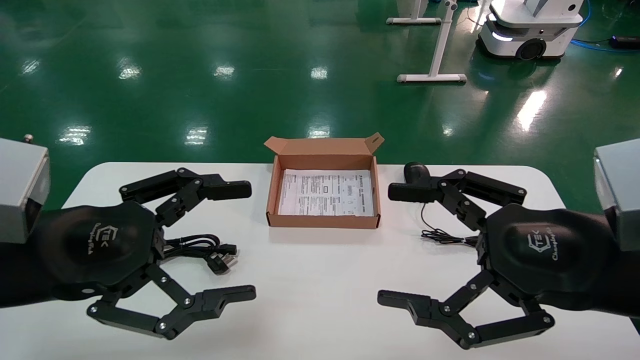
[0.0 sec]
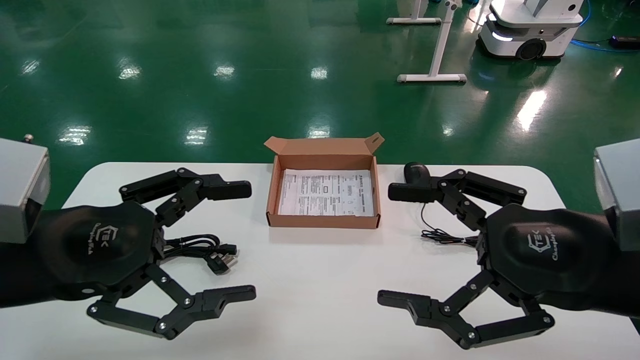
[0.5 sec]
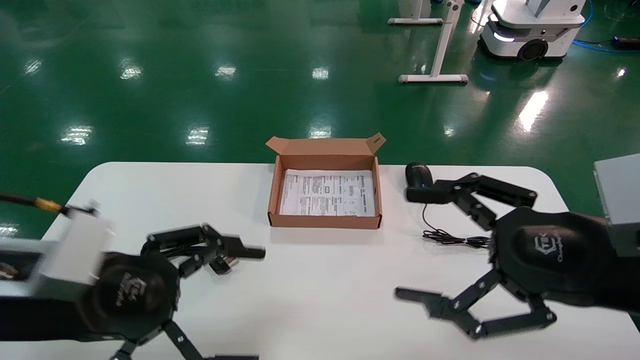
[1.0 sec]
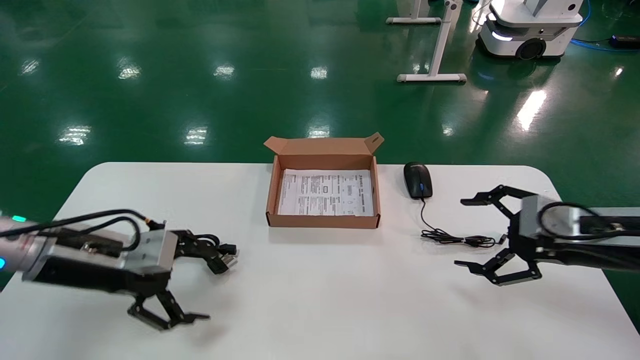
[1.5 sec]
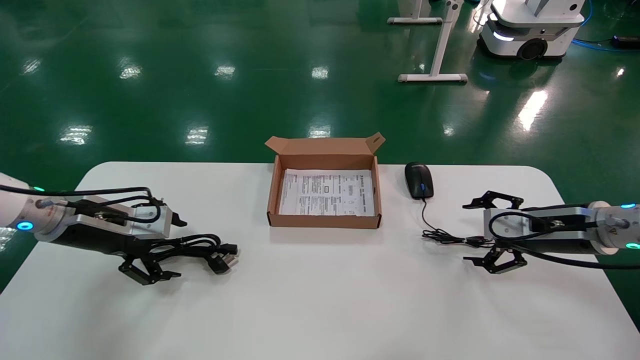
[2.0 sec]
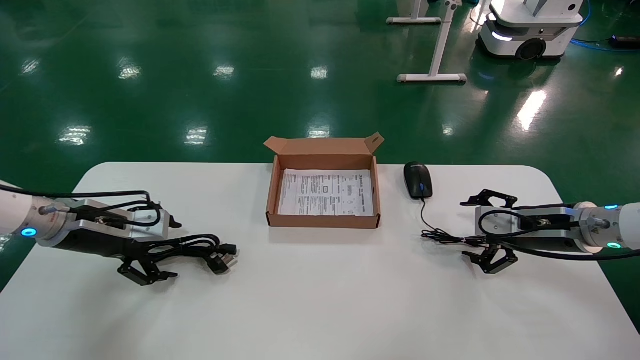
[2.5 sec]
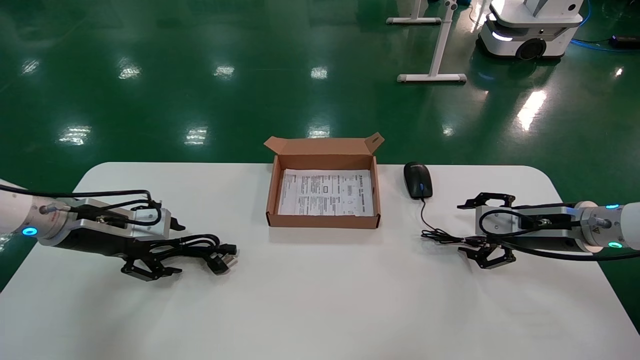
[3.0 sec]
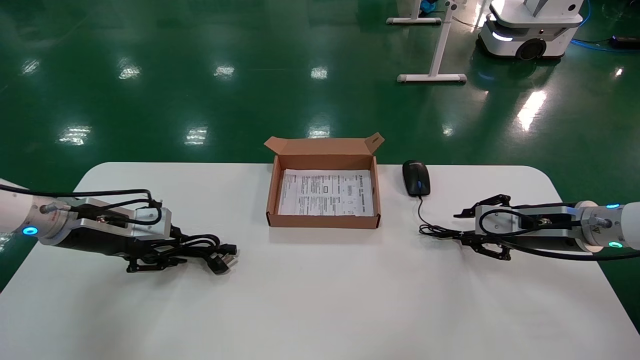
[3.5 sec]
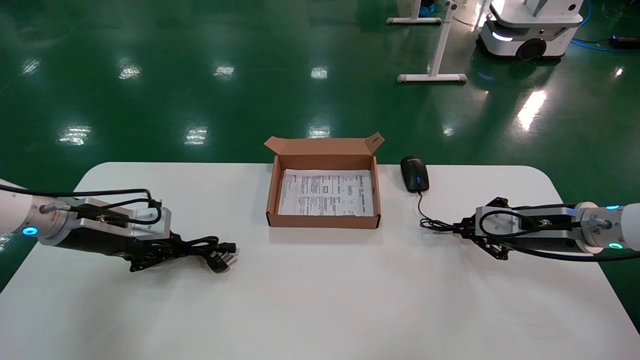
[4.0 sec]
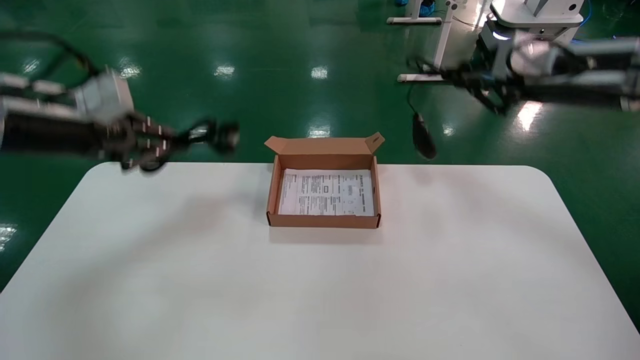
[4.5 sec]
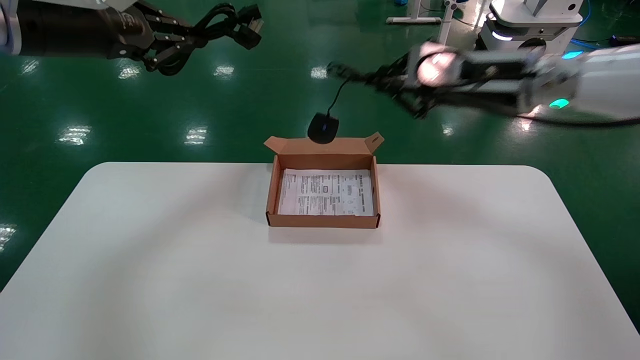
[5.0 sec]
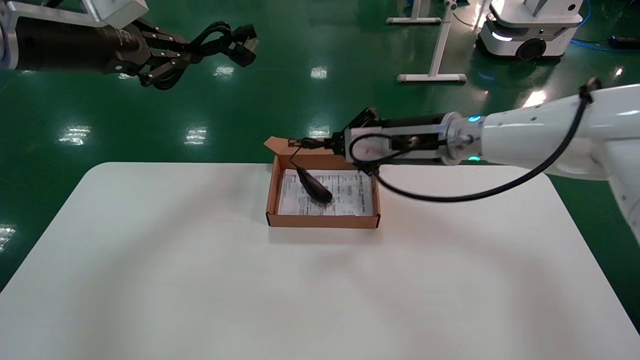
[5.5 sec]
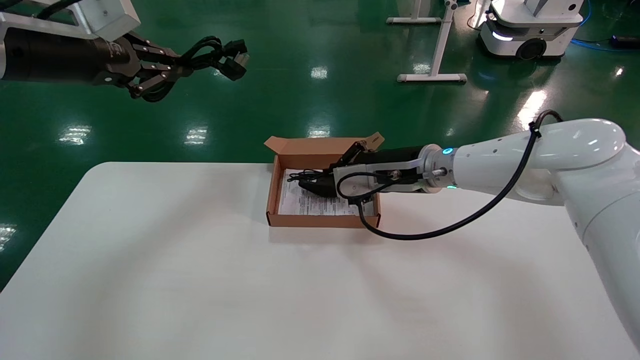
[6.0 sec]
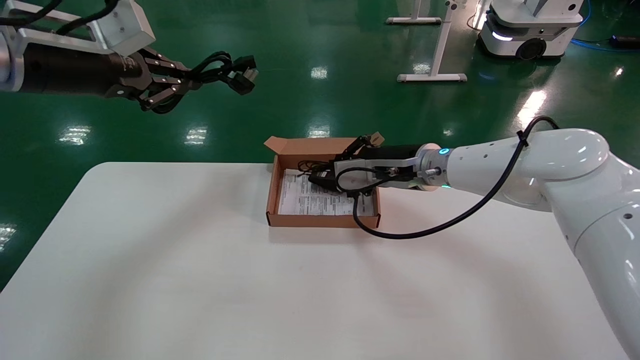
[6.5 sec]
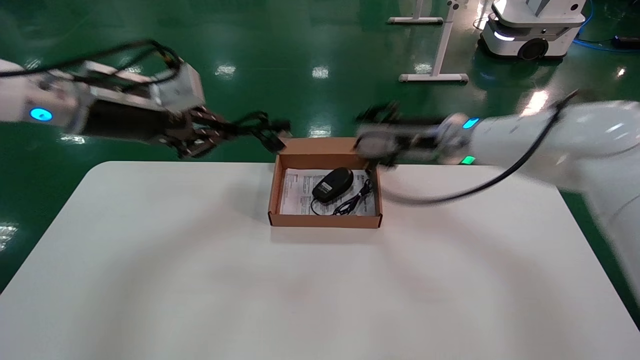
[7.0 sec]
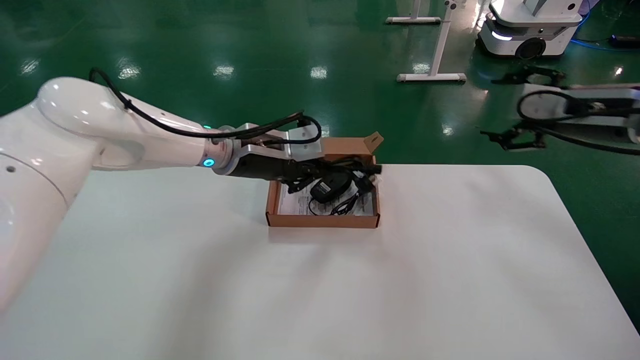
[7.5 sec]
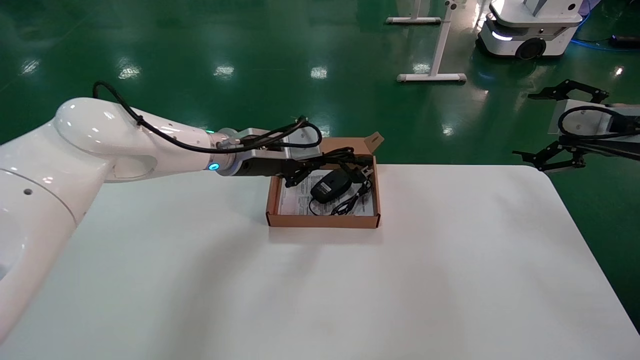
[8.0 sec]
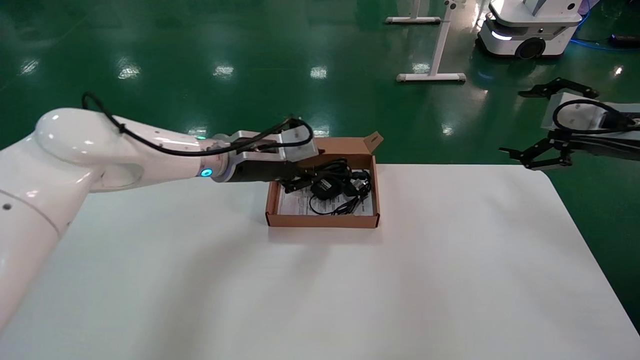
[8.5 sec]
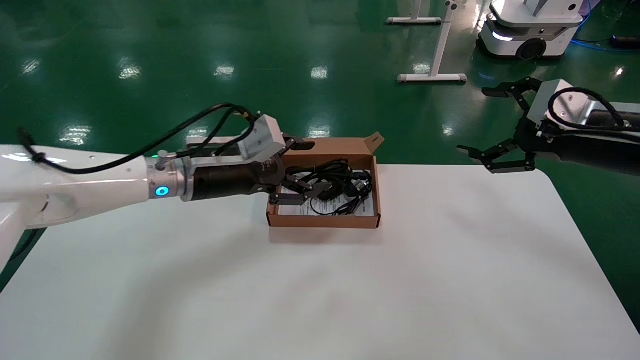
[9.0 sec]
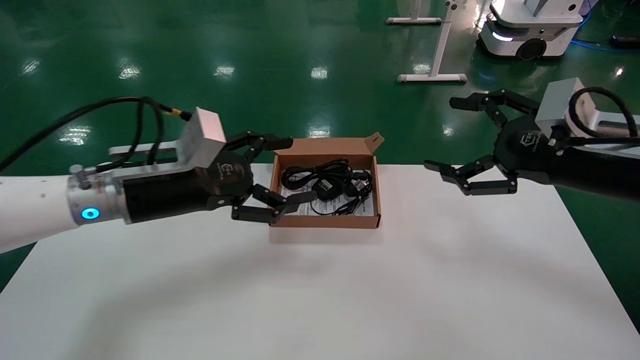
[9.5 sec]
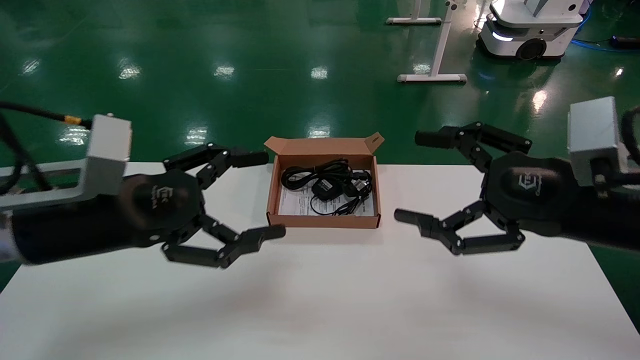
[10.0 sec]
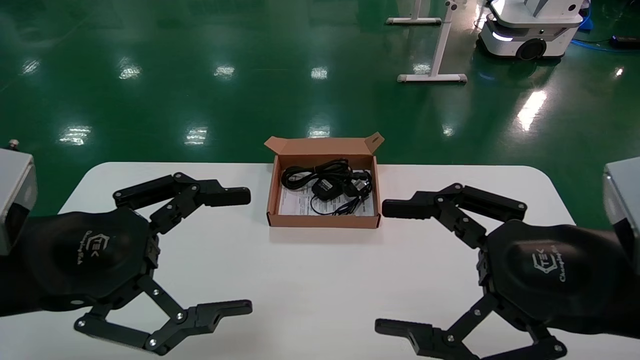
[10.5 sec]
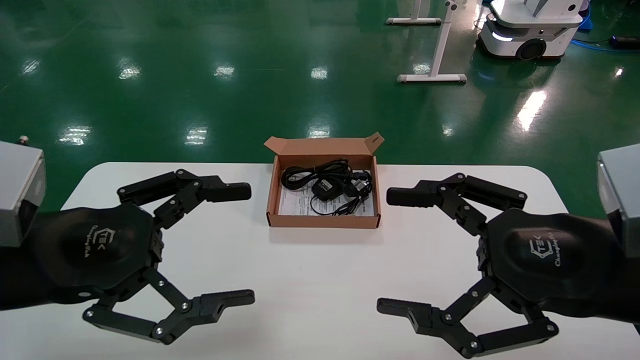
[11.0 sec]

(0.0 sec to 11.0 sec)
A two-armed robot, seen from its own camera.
Step, 1.5 sec - 4.0 sec: Grab and lift both the mouse and power cord from the accessory packaging area at the same time.
Step, 4.5 sec - 8.5 sec: Place the mouse and power cord into the box.
0.0 sec - 2.0 sec: The left gripper is displaced forward and to the left by about 20 cm. The right gripper heads forward, to the right and downward, covering some 25 cm.
2.0 sec - 3.5 sec: The left gripper closes. Meanwhile the right gripper closes its fingers.
3.5 sec - 5.5 sec: The left gripper goes approximately 25 cm upward, and closes. The right gripper is displaced to the left and upward by approximately 25 cm, and closes its fingers.
5.5 sec - 7.5 sec: The right gripper is displaced to the right by about 20 cm, and opens its fingers, while the left gripper goes some 25 cm to the right, downward and forward.
7.5 sec - 9.0 sec: The left gripper changes place by about 5 cm, and opens up. The right gripper shifts about 5 cm backward.
9.0 sec - 11.0 sec: Both grippers travel together backward and to the left, roughly 20 cm. The left gripper opens up.

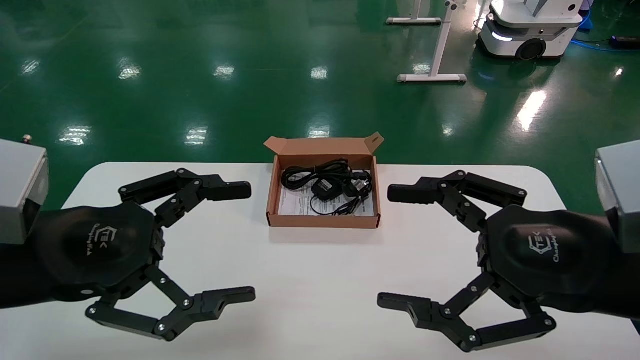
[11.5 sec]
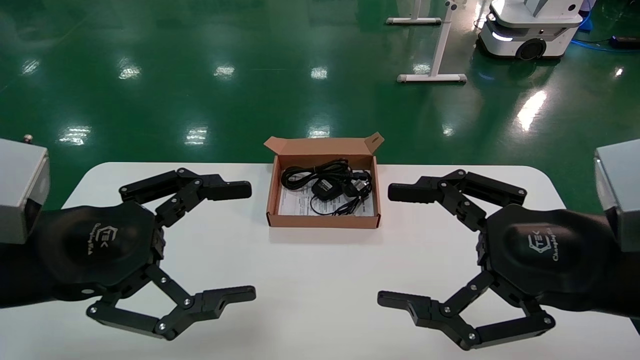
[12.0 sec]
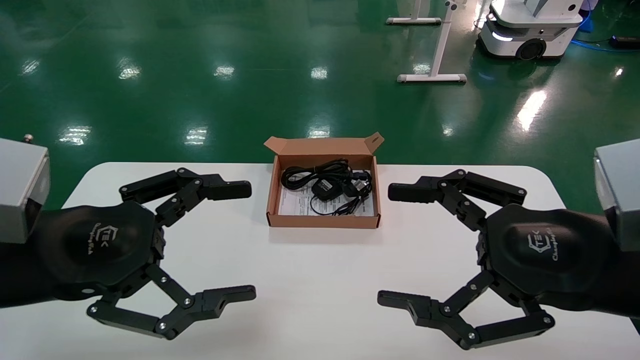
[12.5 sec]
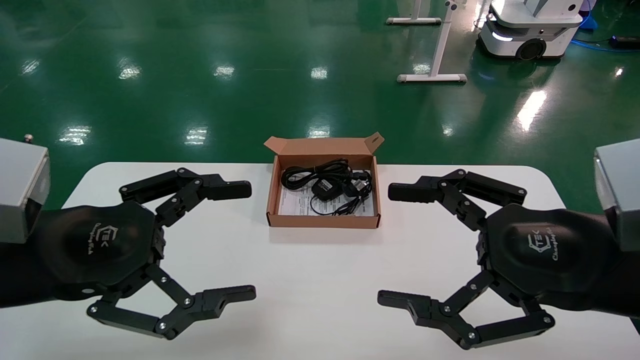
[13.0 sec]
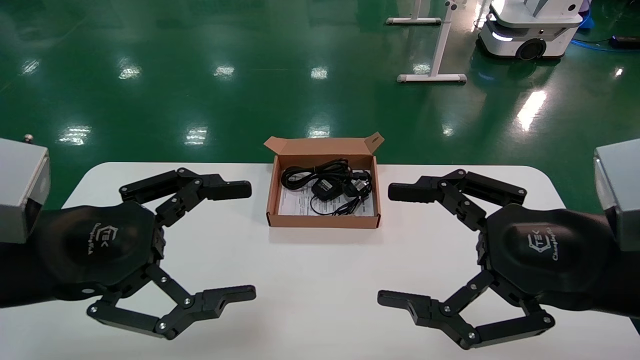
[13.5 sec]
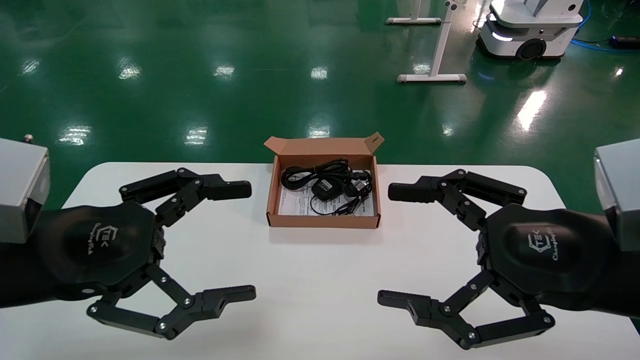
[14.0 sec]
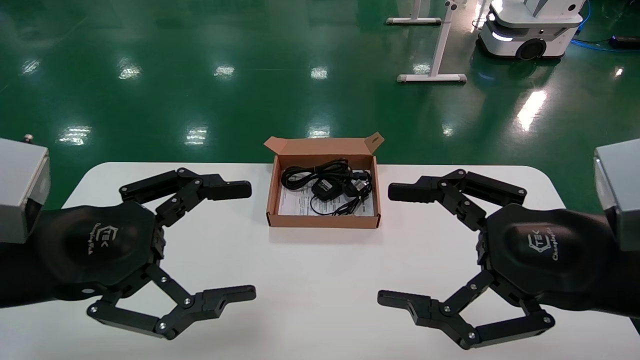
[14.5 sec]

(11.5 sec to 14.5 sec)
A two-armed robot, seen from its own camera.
11.5 sec - 14.5 sec: Both grippers stay about where they are.
